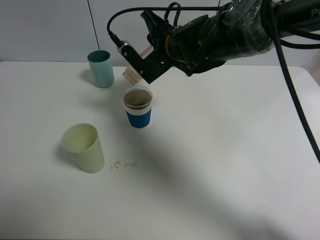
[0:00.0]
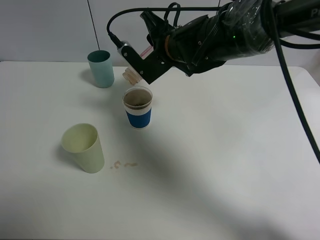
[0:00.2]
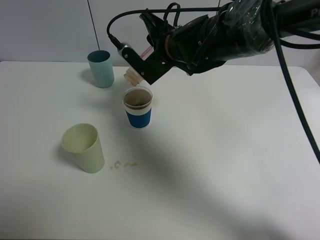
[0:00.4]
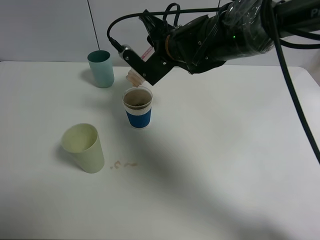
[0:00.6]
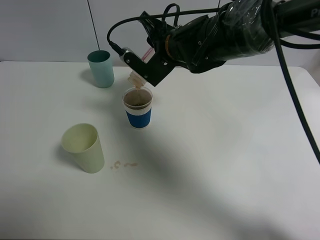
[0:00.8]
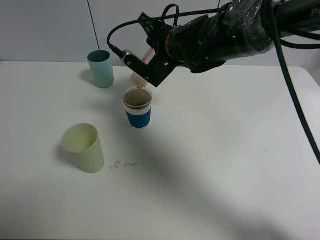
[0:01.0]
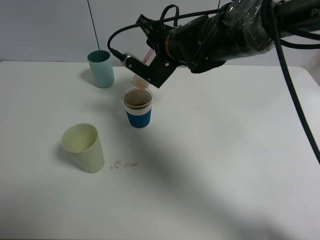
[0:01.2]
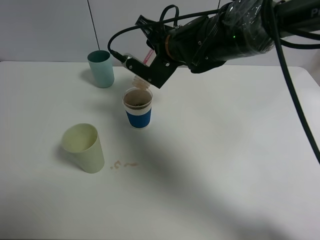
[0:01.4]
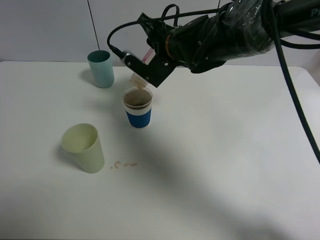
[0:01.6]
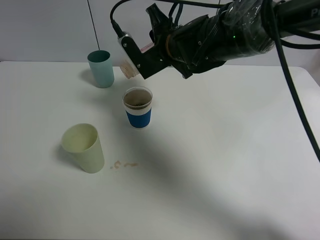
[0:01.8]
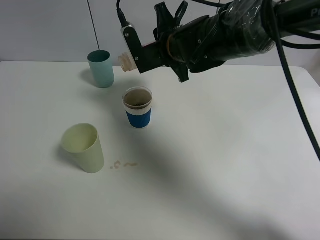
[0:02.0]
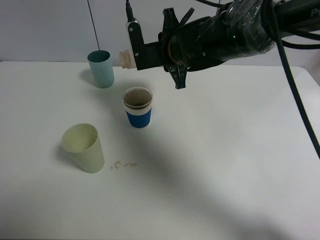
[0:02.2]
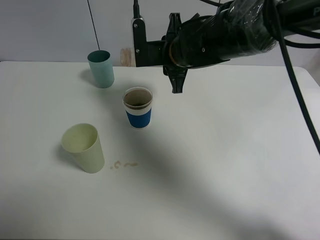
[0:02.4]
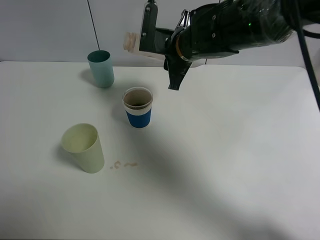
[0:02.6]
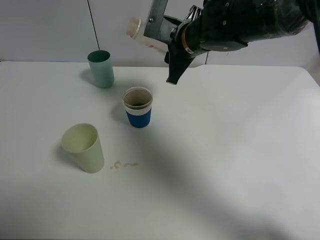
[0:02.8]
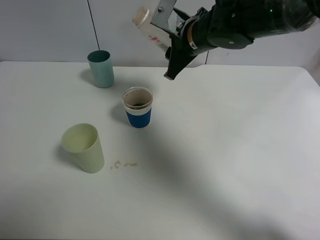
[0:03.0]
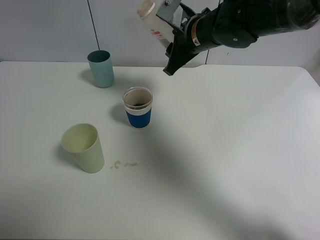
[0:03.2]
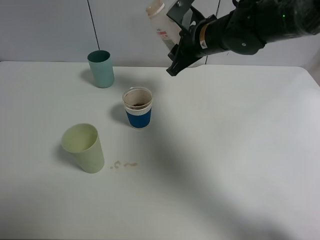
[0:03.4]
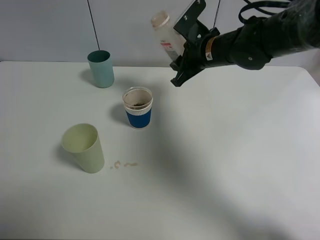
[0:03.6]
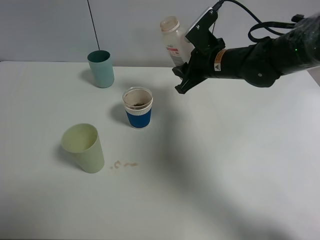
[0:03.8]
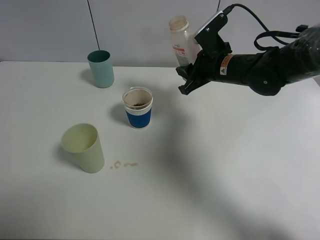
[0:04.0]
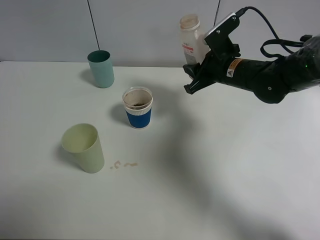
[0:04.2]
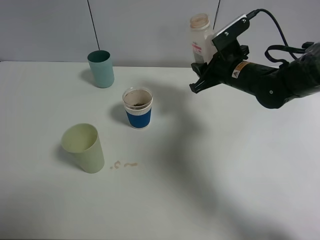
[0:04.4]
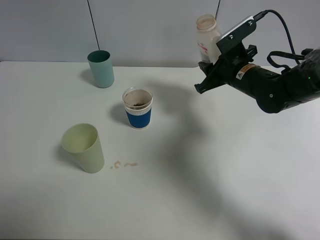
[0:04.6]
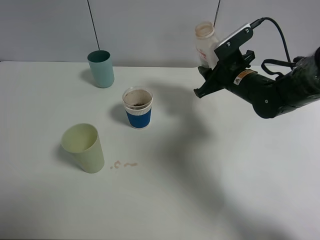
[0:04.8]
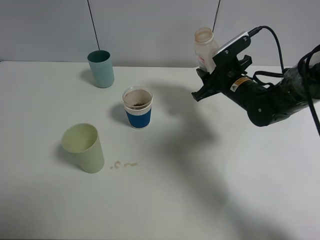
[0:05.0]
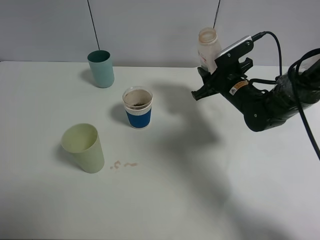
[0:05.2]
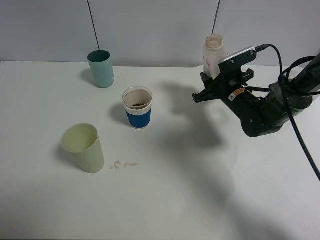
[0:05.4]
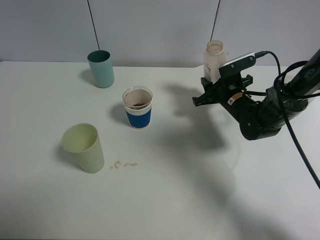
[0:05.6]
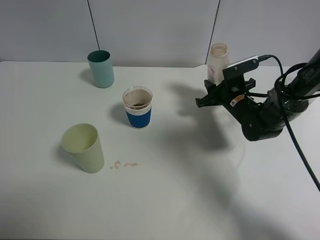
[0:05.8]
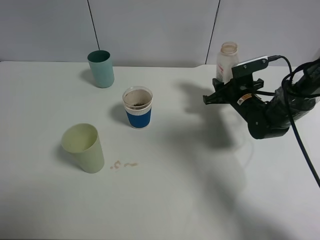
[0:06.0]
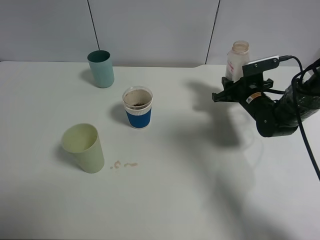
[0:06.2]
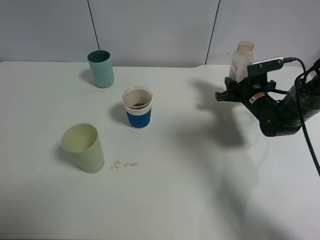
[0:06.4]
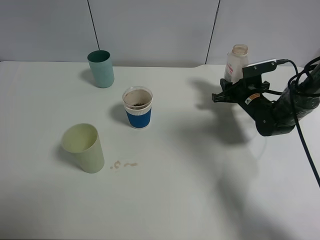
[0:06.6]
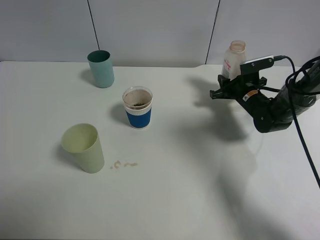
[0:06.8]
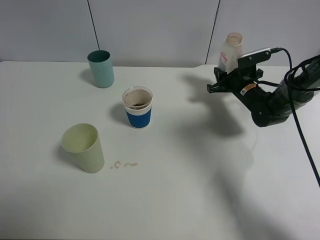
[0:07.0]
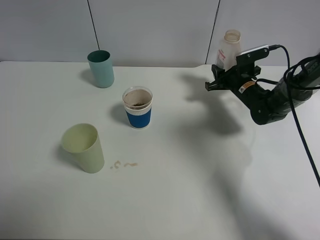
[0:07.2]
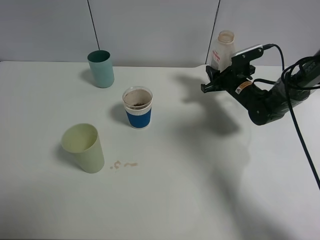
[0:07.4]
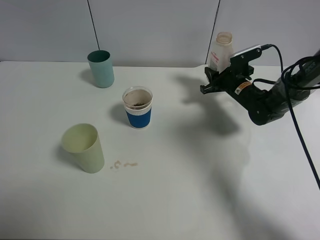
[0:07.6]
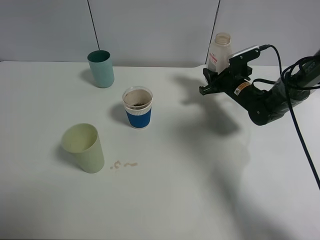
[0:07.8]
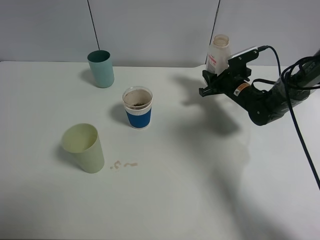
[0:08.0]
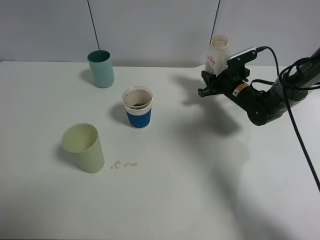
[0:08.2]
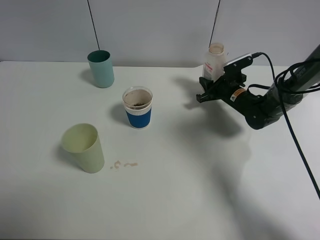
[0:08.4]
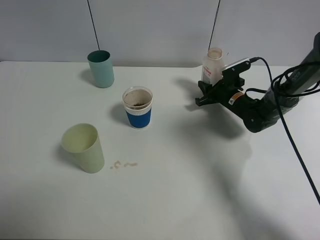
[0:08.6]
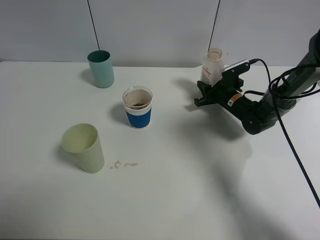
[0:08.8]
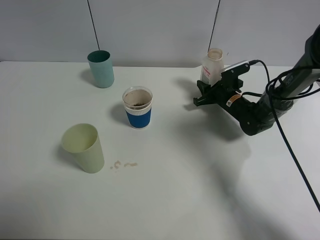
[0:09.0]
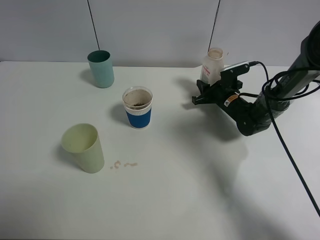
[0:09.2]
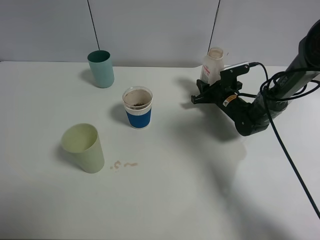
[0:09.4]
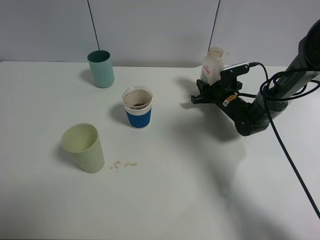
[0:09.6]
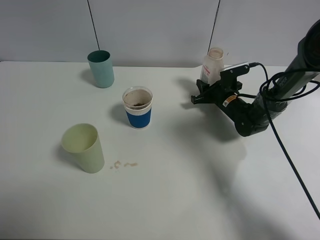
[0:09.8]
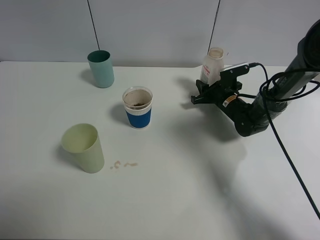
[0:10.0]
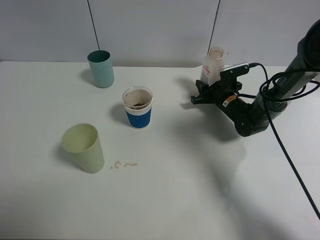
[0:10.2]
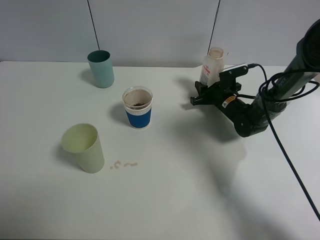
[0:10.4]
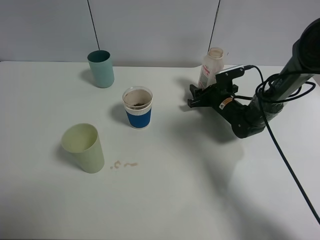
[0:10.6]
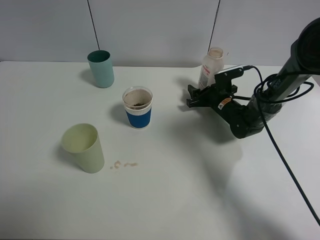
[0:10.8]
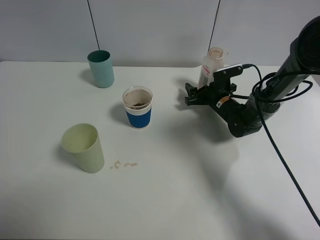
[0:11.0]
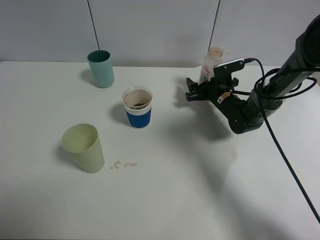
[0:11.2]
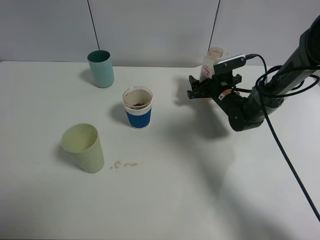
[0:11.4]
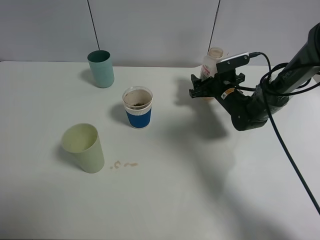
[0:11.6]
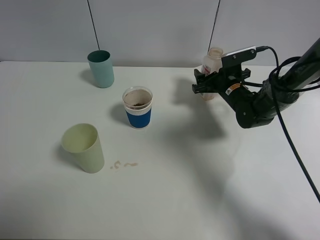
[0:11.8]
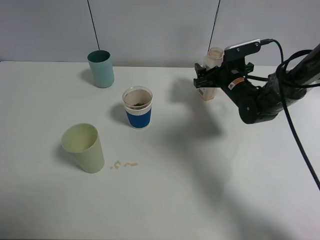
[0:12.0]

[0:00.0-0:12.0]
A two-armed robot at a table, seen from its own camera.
Task of the whole recording: use a clamp to hold the bottle of the drink, pour the beverage into a random cup, then clamp the cup containing the drink and pour the drink into another random cup.
Step, 0:02.0 to 0:10.4: Place the drink bottle on the table with right gripper.
0:00.0 to 0:01.6: There are only small adjustments of the grippers.
0:03.0 to 0:04.4: The right gripper moves to the right and downward, roughly 10 cm.
0:04.4 to 0:06.0: The right gripper is displaced downward by about 10 cm.
0:06.0 to 0:07.6: The grippers move only a little.
0:07.6 to 0:09.0: There are only small adjustments of the grippers.
0:09.0 to 0:10.4: Neither gripper changes place.
0:10.4 to 0:12.0: The right gripper shifts about 10 cm upward, and opens up.

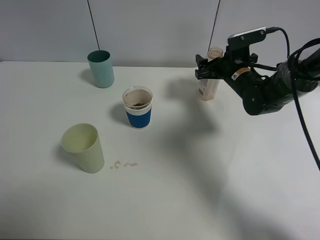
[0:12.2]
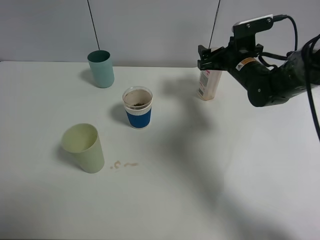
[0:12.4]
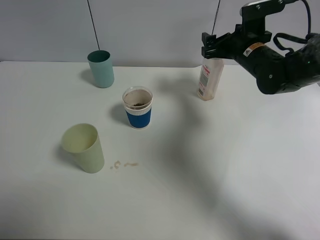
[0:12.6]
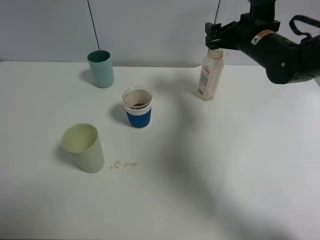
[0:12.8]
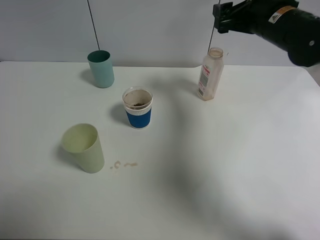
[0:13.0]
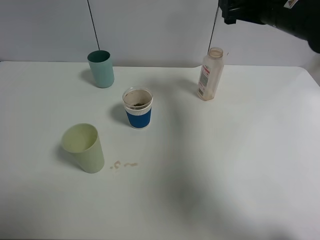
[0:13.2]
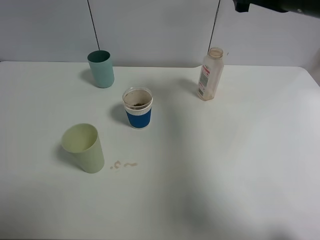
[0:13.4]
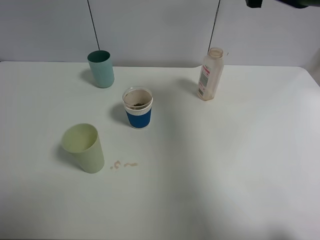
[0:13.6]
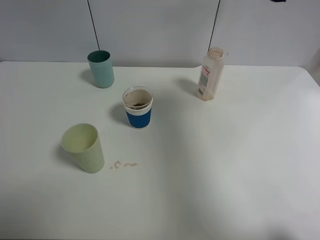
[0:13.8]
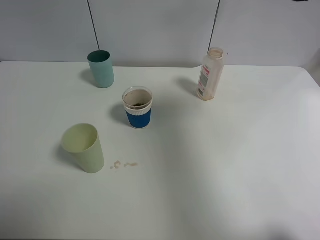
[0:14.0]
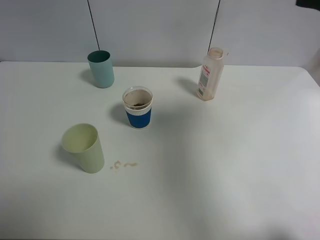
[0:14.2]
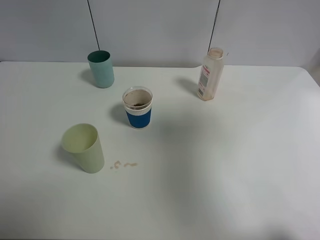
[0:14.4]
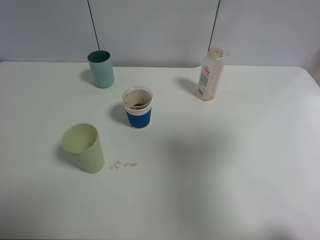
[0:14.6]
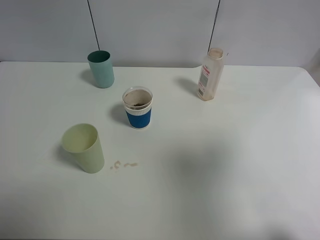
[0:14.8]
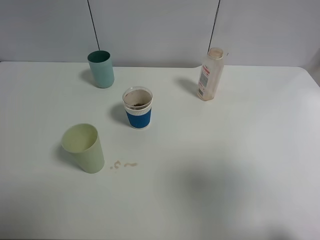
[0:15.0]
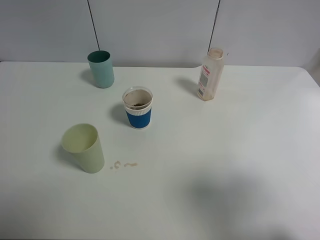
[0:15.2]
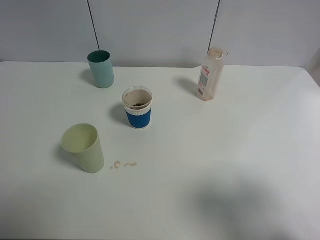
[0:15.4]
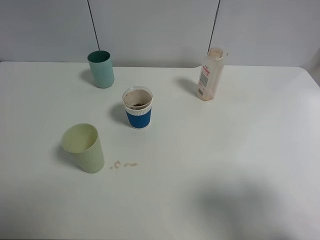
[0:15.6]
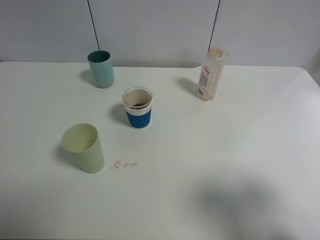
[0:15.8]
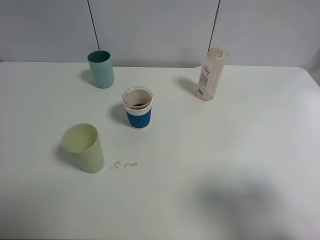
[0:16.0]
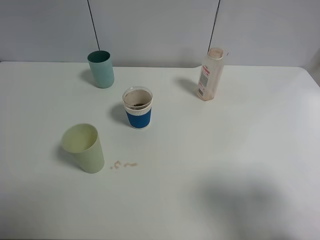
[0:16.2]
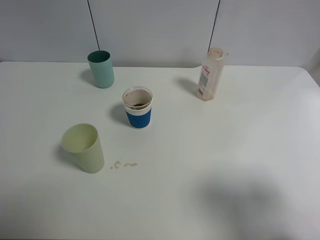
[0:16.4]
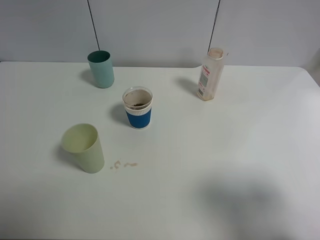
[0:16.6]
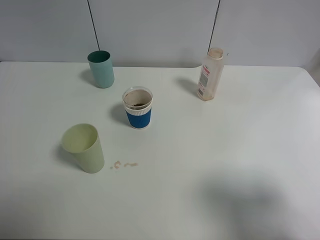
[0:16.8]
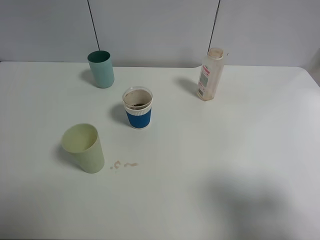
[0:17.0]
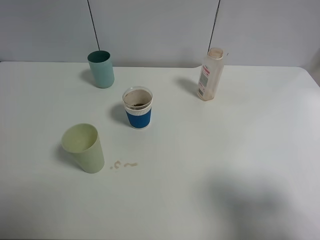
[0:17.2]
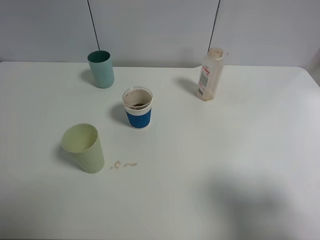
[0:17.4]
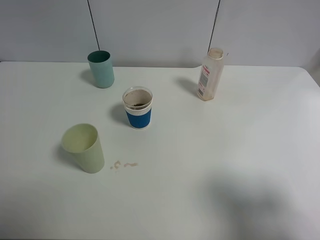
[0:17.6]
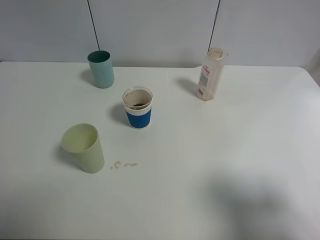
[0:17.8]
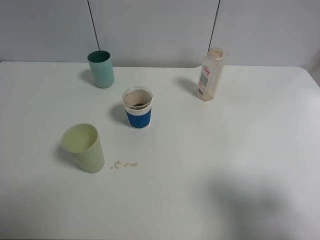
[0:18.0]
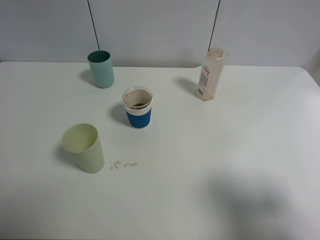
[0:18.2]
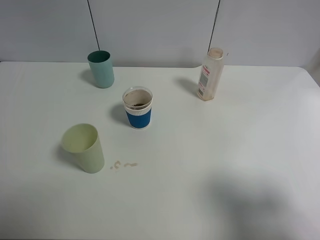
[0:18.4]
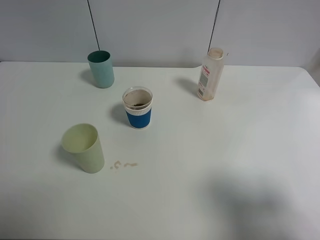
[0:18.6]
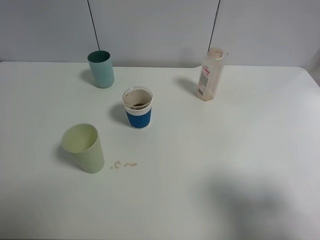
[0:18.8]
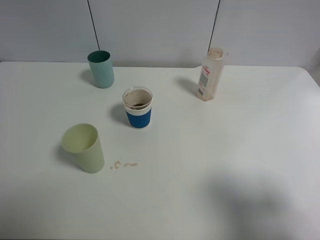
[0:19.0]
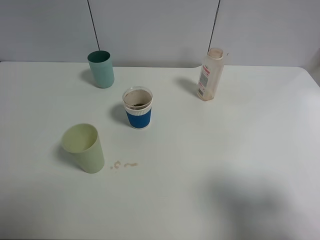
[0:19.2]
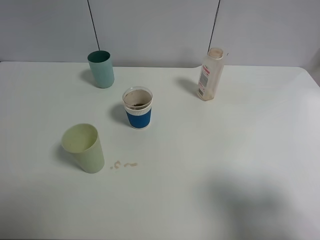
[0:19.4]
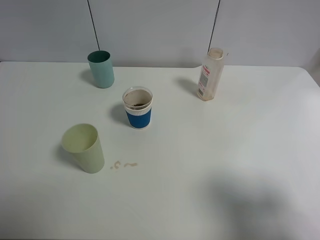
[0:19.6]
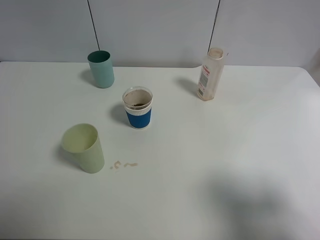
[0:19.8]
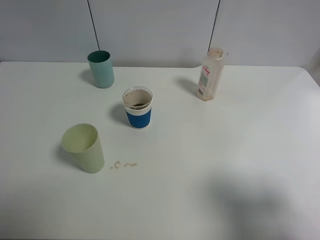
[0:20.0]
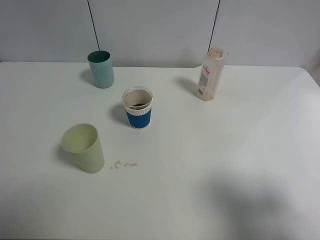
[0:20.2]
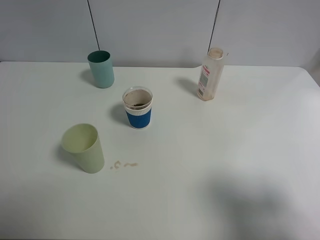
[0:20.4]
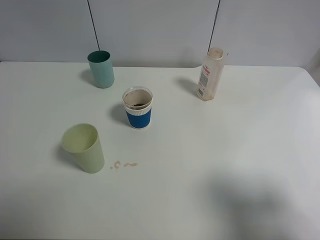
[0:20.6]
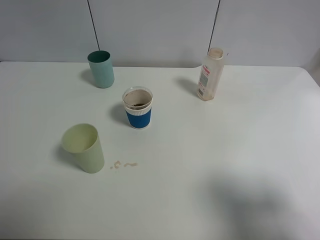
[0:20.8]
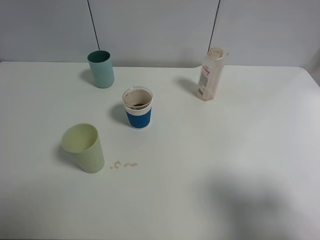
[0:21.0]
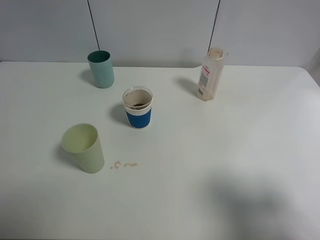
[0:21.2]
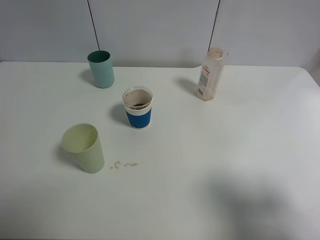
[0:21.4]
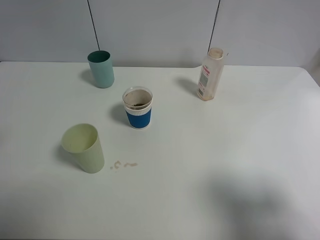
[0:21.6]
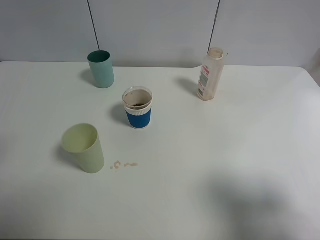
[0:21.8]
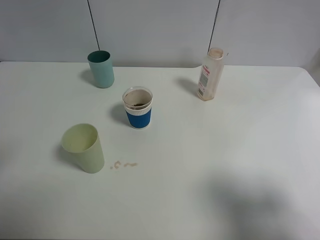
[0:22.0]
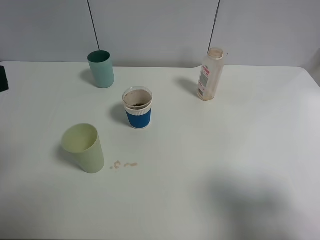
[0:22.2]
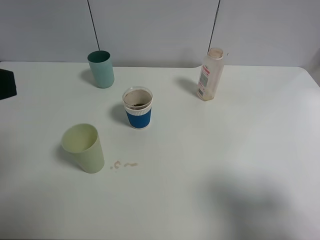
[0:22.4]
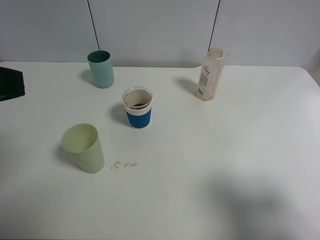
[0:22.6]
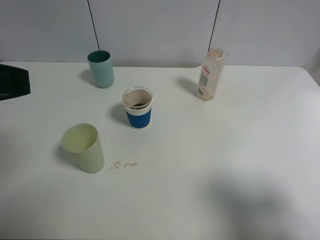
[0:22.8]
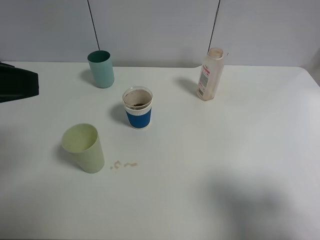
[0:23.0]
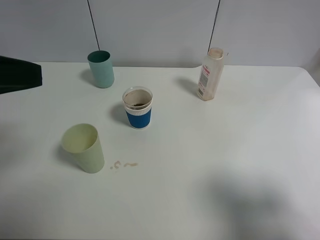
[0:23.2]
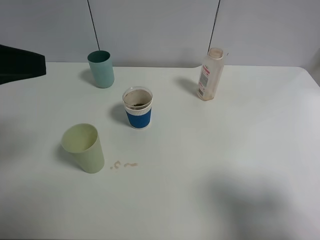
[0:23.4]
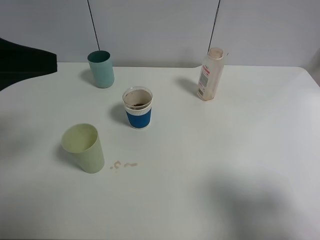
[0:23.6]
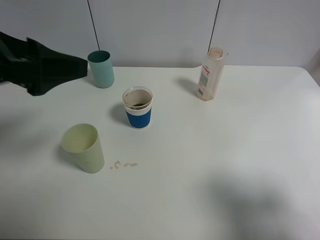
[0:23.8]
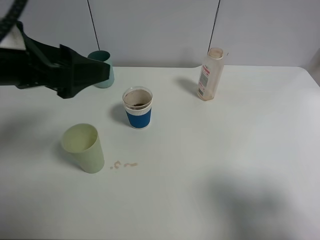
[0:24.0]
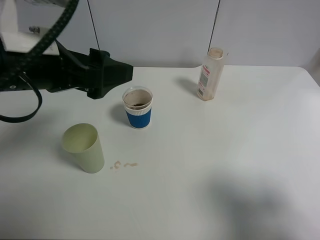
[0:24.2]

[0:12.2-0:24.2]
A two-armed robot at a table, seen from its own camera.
Task of the whole recording: use a clamp to hold the bottle of the drink, pour the beverage into a random cup, then clamp the cup containing the drink and pour the drink into another random cup.
0:12.2 to 0:13.8: The right gripper heads upward and backward, covering some 25 cm.
0:13.8 to 0:15.2: The right gripper shifts some 25 cm backward.
0:15.2 to 0:16.6: The grippers make only small movements.
0:22.6 to 0:24.2: The left gripper travels to the right and forward by approximately 15 cm.
